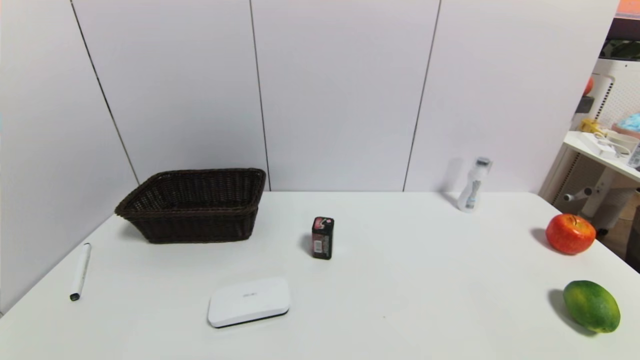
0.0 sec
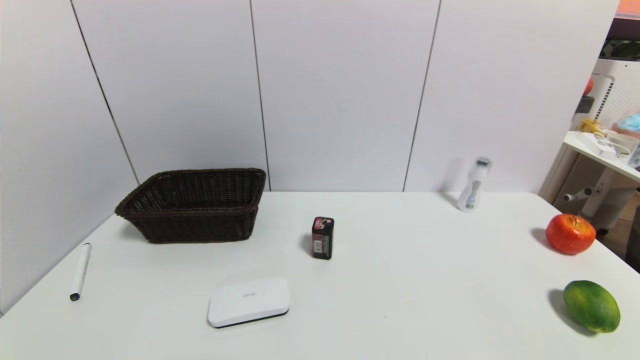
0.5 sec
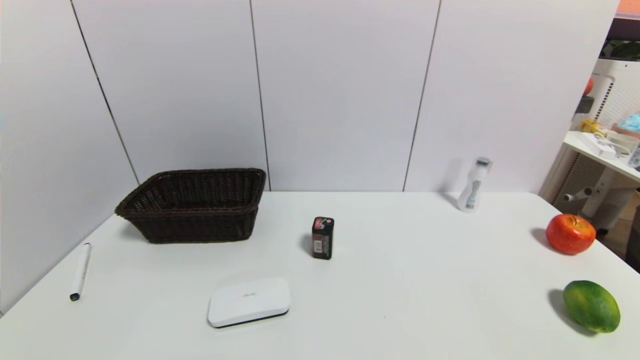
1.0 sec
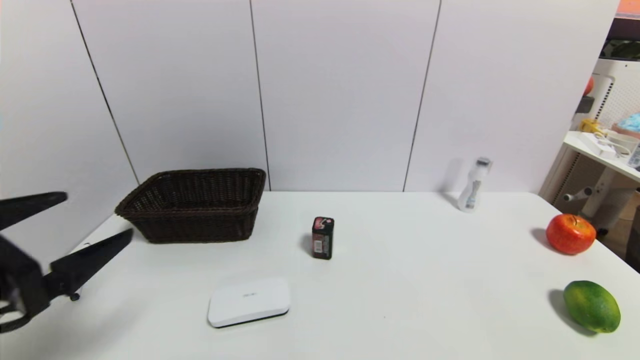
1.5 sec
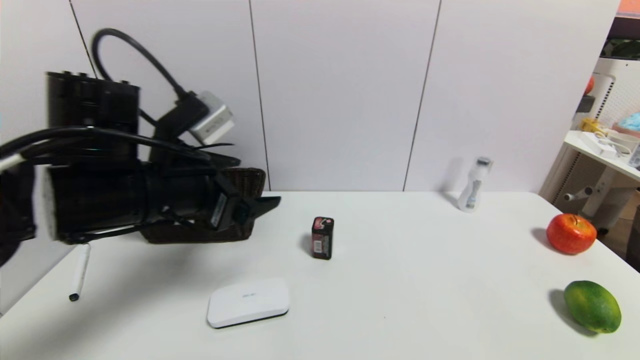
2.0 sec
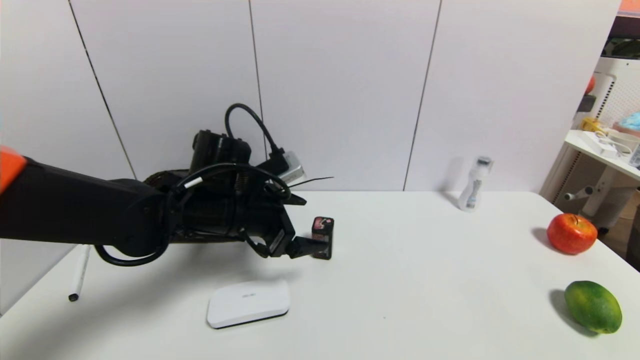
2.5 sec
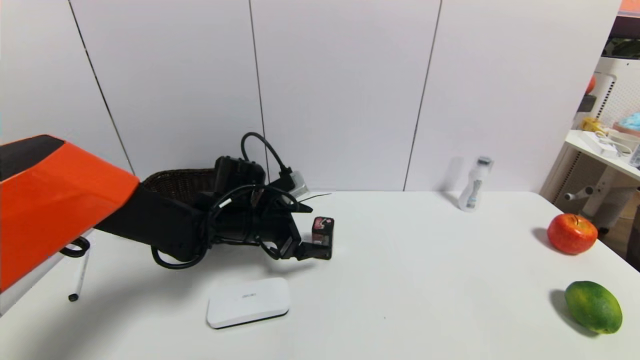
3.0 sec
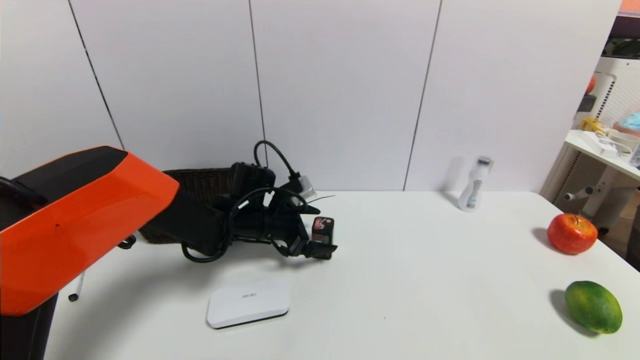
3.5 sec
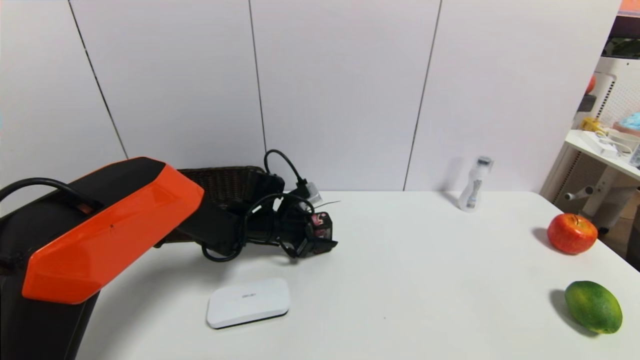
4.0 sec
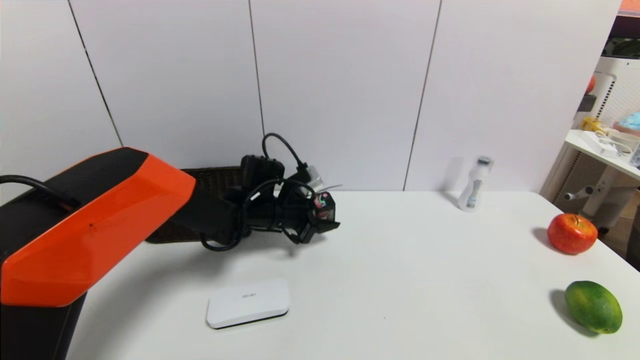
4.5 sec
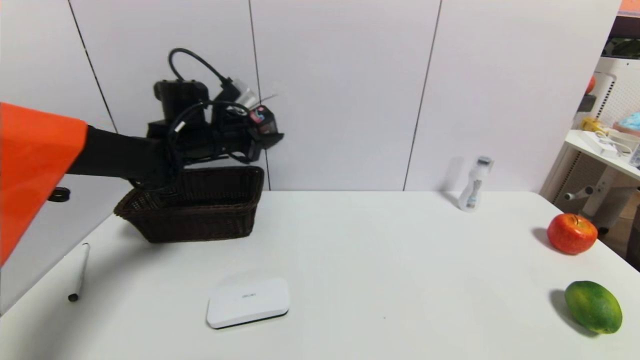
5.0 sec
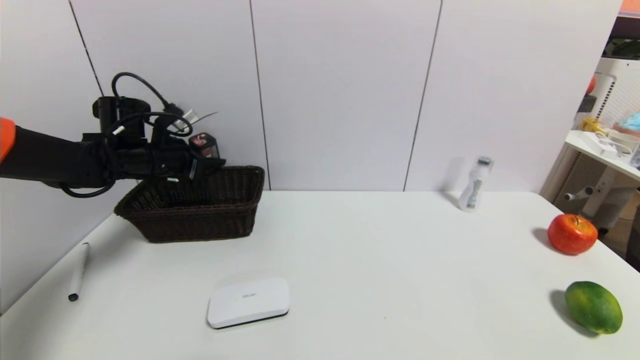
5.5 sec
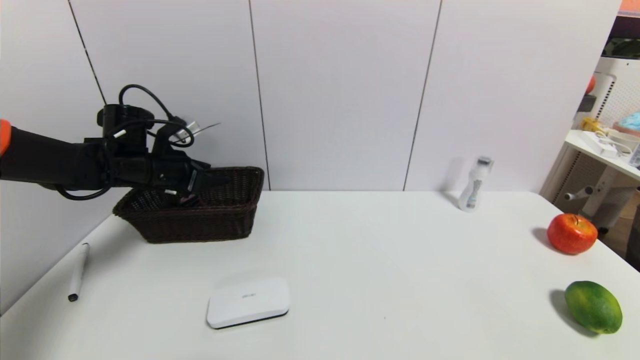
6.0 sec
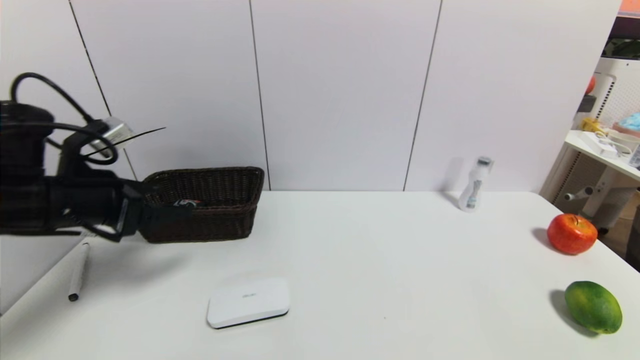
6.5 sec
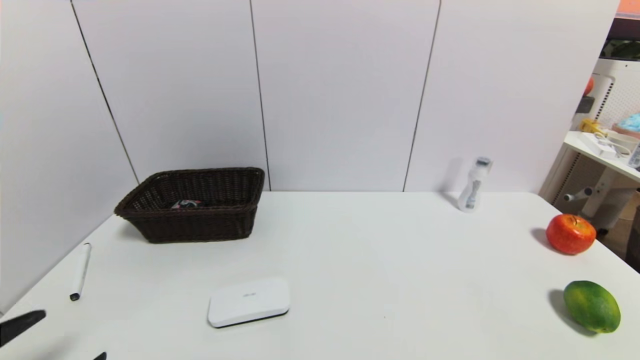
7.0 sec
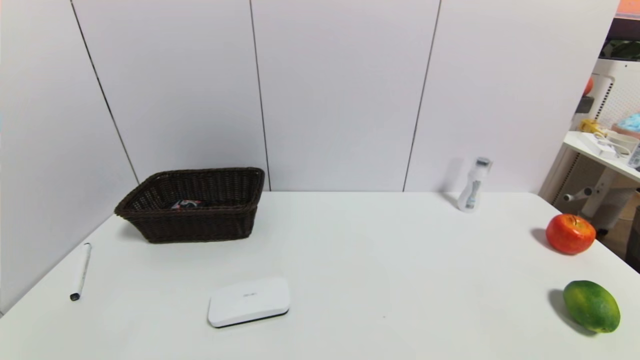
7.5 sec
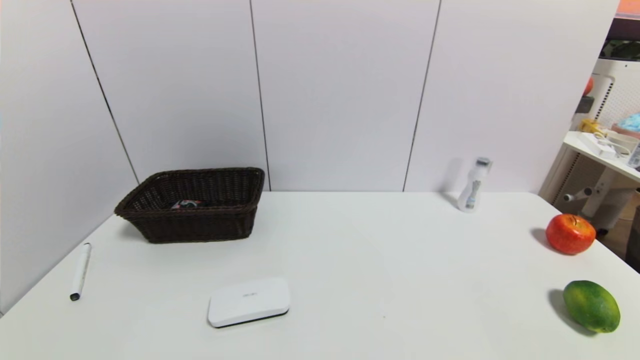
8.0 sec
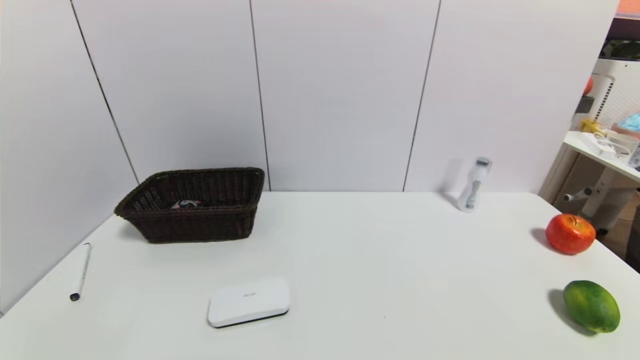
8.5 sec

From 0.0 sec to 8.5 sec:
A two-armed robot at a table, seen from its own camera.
Task of the whole recording: use a gripper to pick the target object and place on the brown basket.
Step, from 0.0 sec to 4.0 sec: Grasp the square chewing gum with the left gripper.
Step, from 4.5 sec to 6.0 sec: Place the square chewing gum into the basket with the left gripper.
From 0.0 sec to 2.0 sec: The left gripper shifts about 35 cm forward, upward and to the right.
From 2.0 sec to 4.0 sec: The left gripper moves downward, forward and to the right, roughly 25 cm, and closes.
From 4.0 sec to 6.5 sec: The left gripper moves to the left, upward and backward, approximately 30 cm, and opens its fingers.
From 6.5 sec to 8.5 sec: The left gripper goes roughly 30 cm backward and downward.
